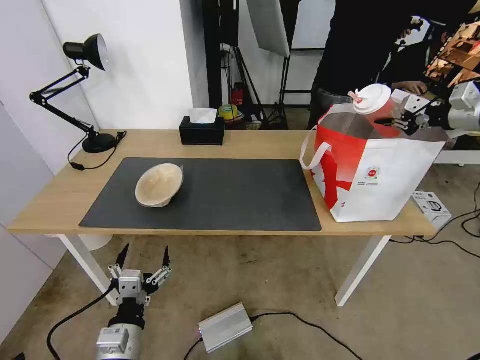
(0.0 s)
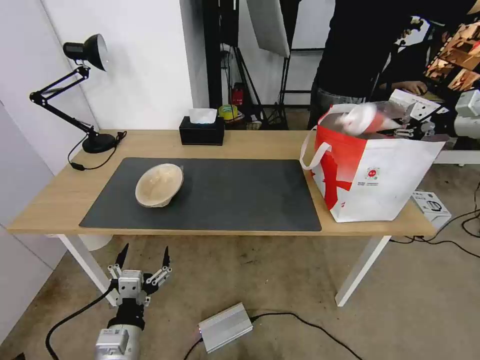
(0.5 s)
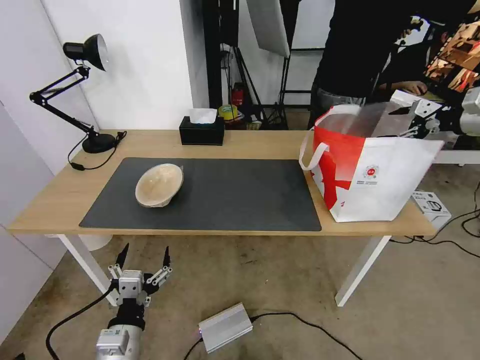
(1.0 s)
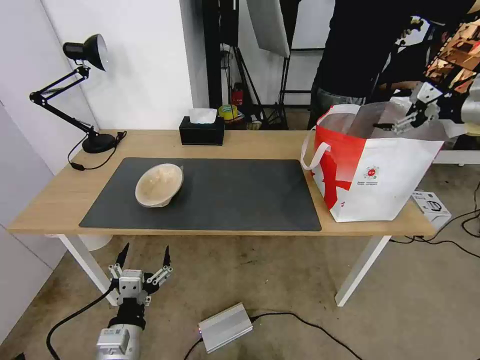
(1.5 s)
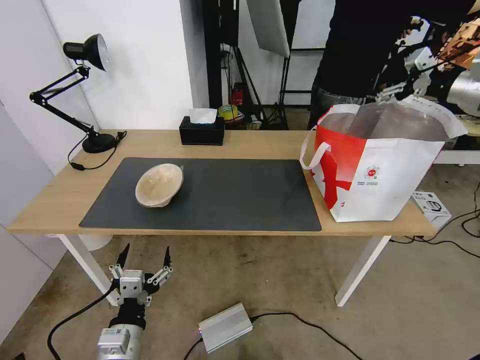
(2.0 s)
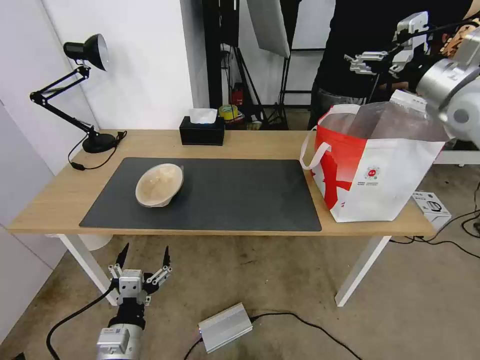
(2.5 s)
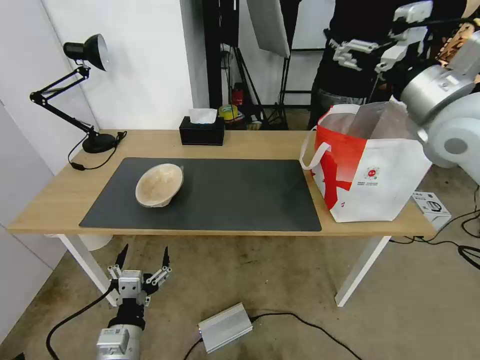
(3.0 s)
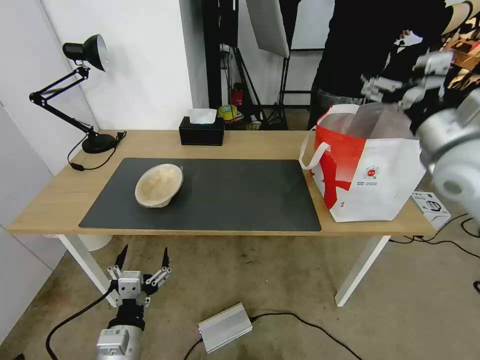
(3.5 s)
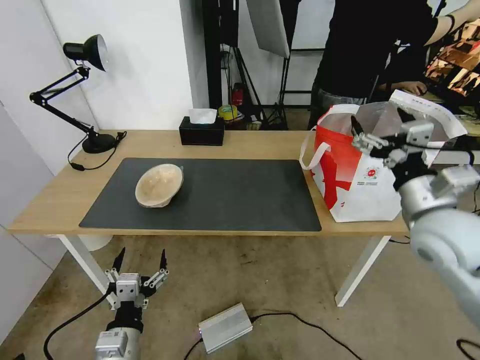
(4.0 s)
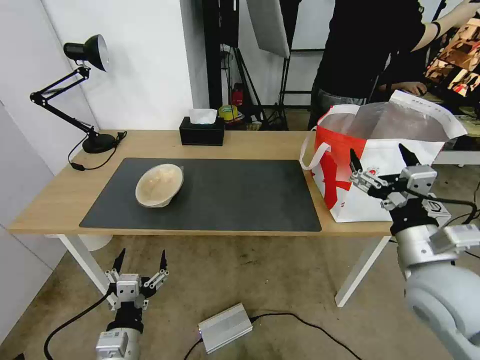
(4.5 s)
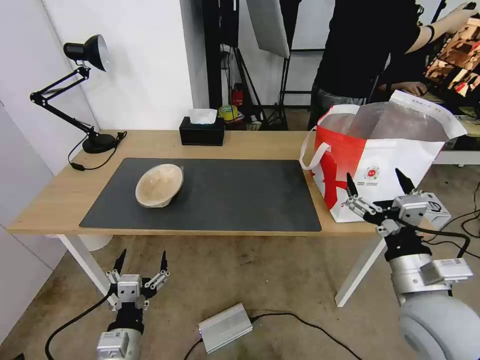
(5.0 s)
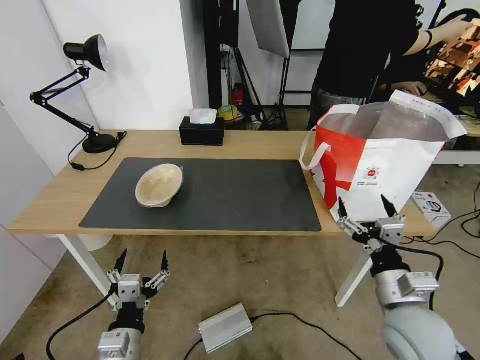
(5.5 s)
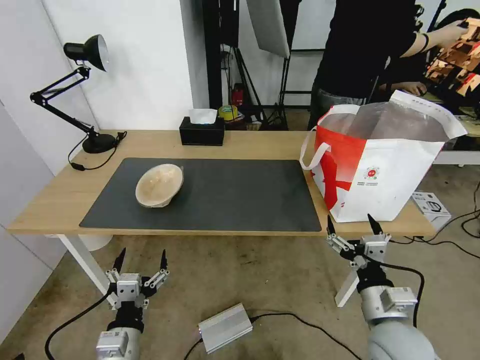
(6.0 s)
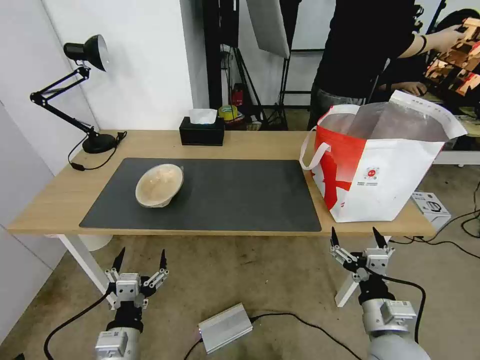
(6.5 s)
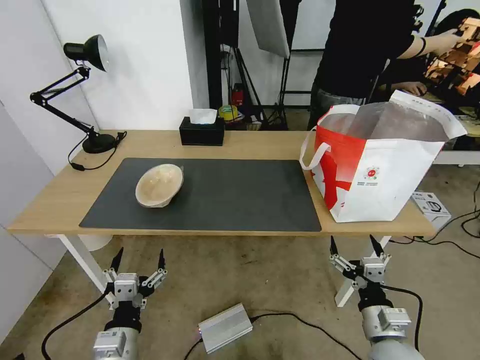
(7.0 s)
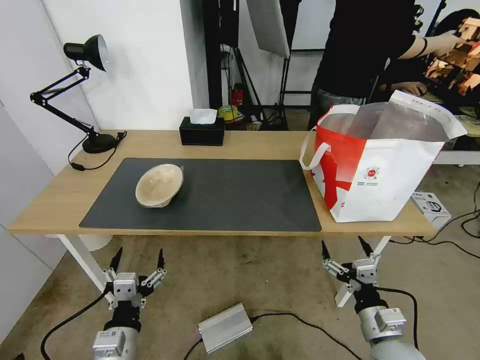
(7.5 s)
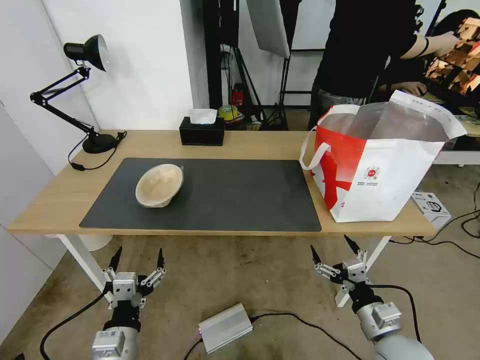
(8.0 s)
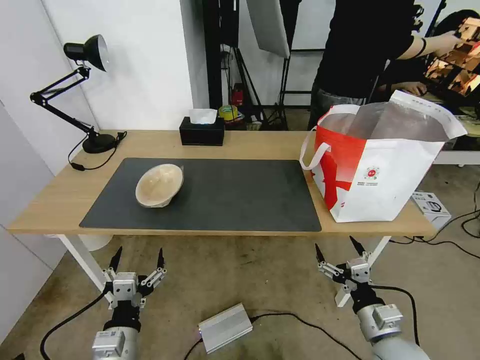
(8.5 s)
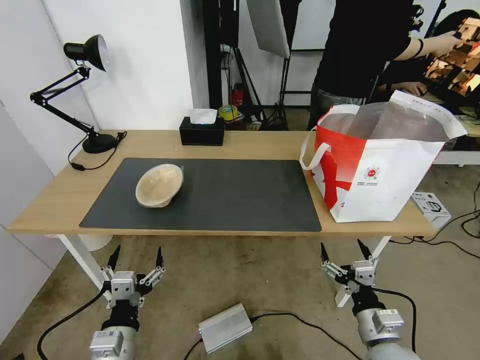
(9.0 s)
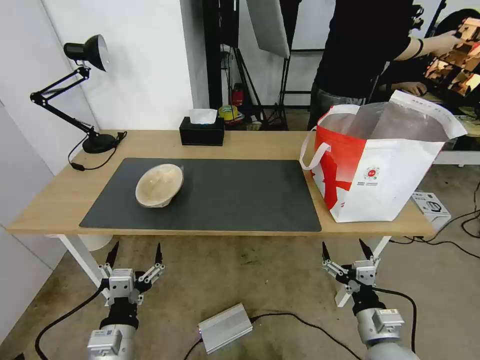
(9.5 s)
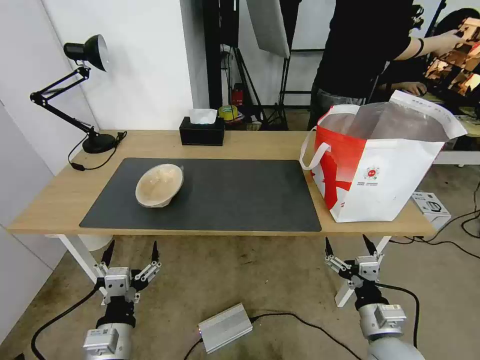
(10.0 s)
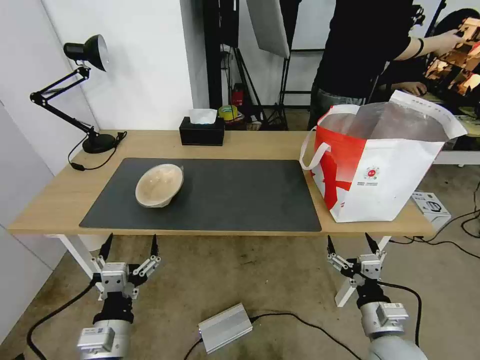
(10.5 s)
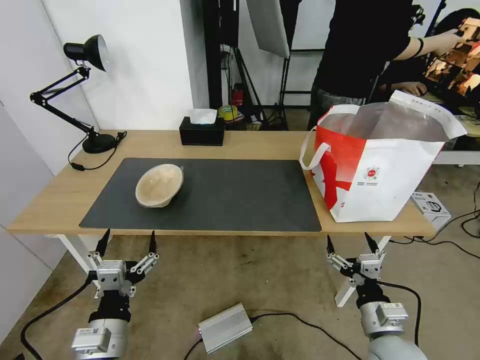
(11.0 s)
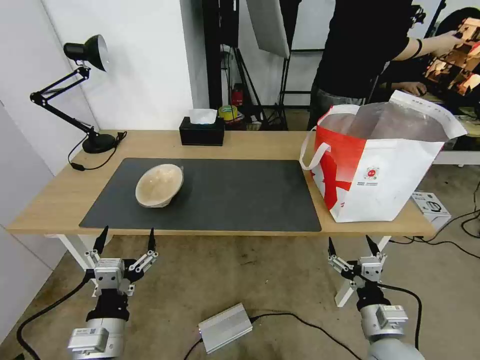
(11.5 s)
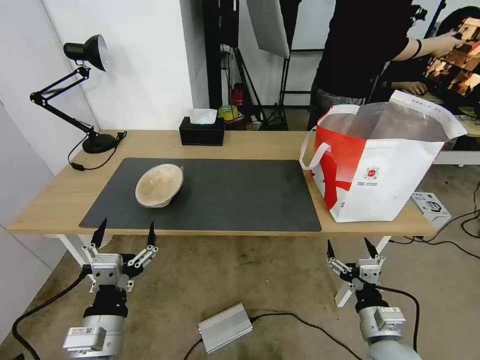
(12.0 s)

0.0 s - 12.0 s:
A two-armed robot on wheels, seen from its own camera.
Task of the whole recording: Pick up the trash from the table and place it into the takeout bag.
0.0 s - 2.0 s: The right gripper changes place by roughly 5 cm, and opens its fingers.
2.0 s - 4.0 s: The right gripper is displaced backward, to the left and downward by about 30 cm.
4.0 s - 6.0 s: The right gripper heads downward and backward, covering about 20 cm.
6.0 s - 8.0 s: The right gripper shifts some 5 cm downward.
8.0 s - 10.0 s: There are only small adjustments of the grippers.
10.0 s - 12.0 s: The grippers stay close to where they were, moving slightly.

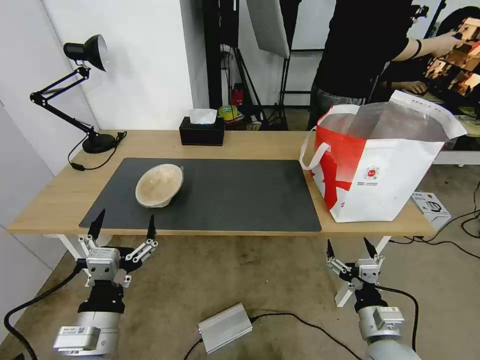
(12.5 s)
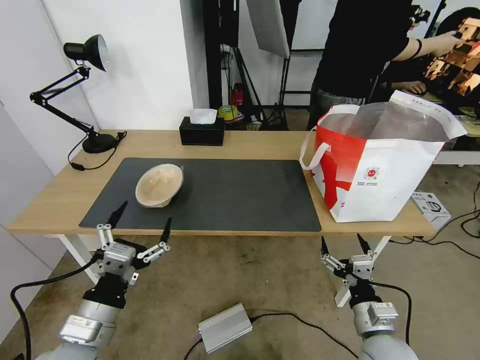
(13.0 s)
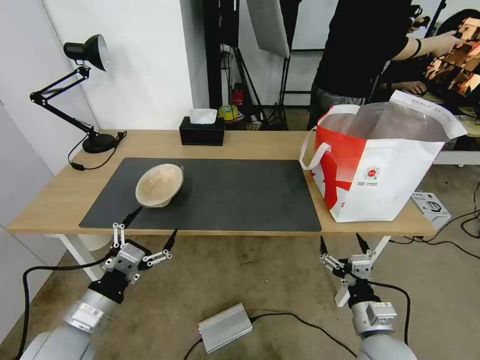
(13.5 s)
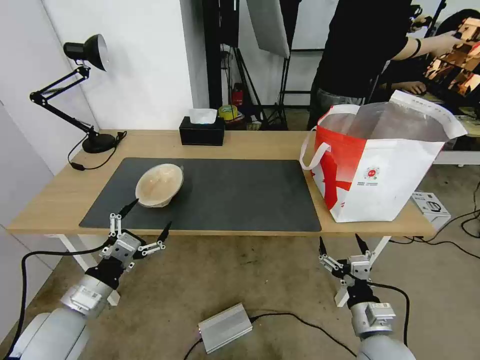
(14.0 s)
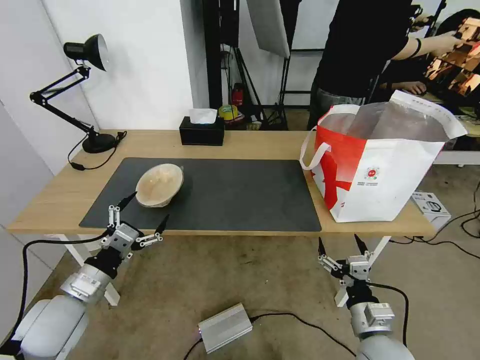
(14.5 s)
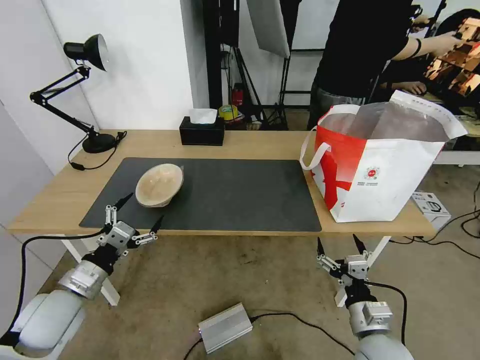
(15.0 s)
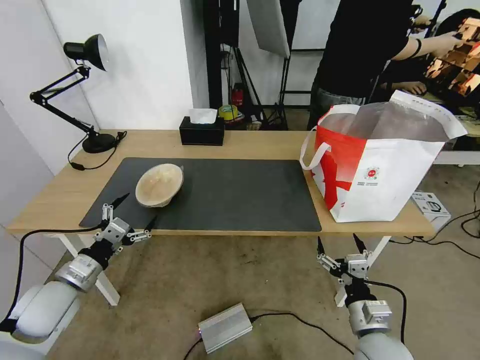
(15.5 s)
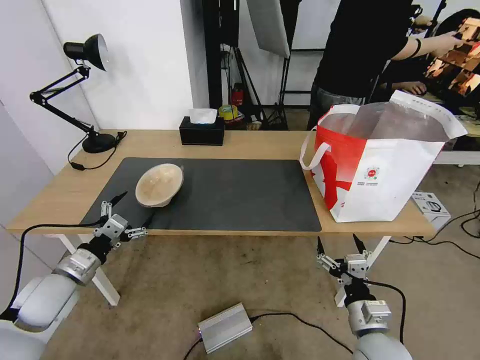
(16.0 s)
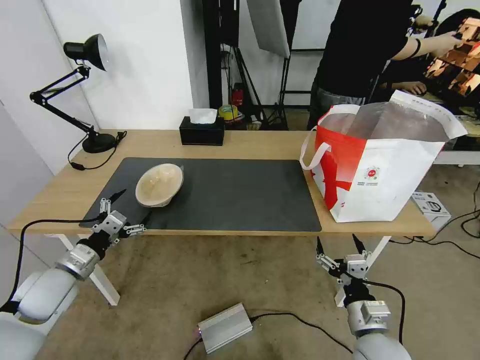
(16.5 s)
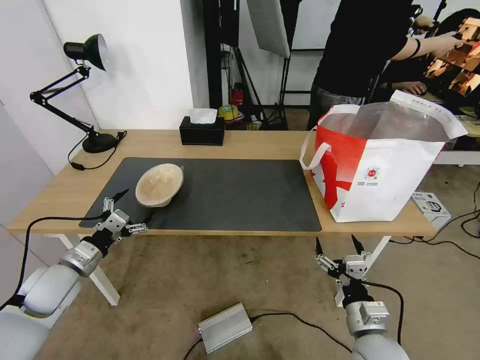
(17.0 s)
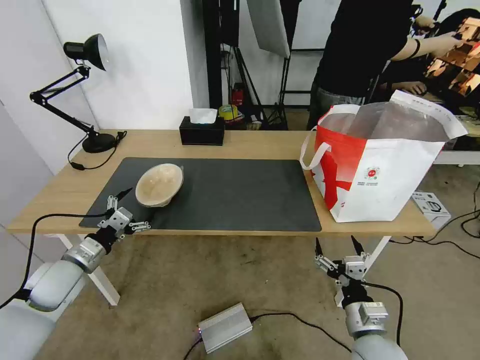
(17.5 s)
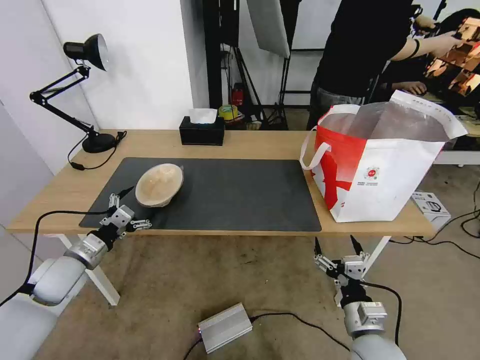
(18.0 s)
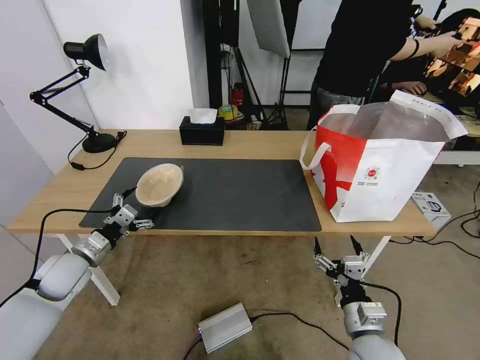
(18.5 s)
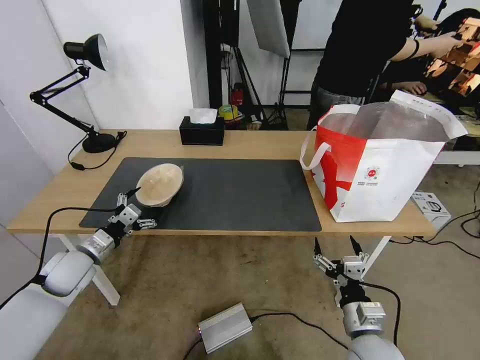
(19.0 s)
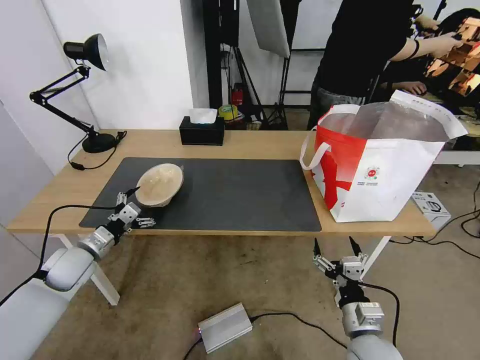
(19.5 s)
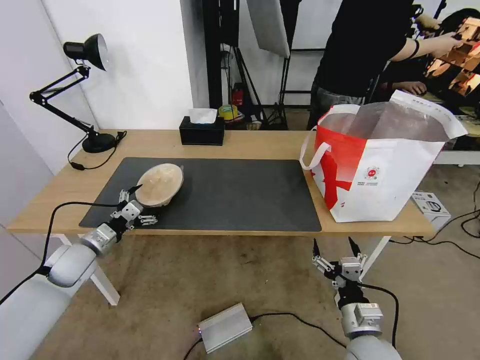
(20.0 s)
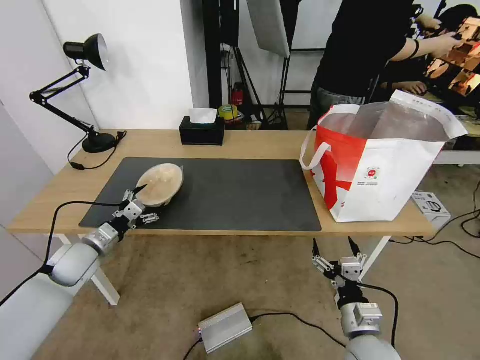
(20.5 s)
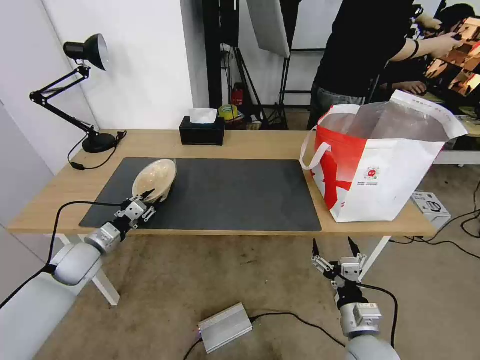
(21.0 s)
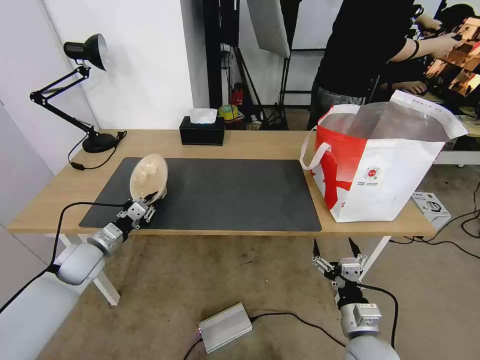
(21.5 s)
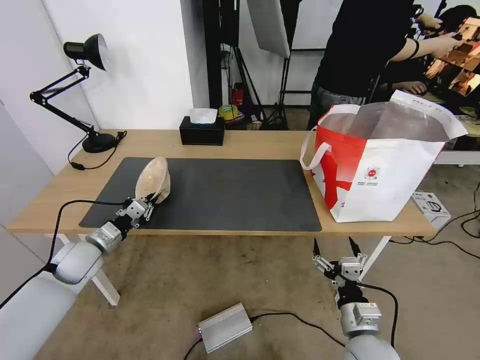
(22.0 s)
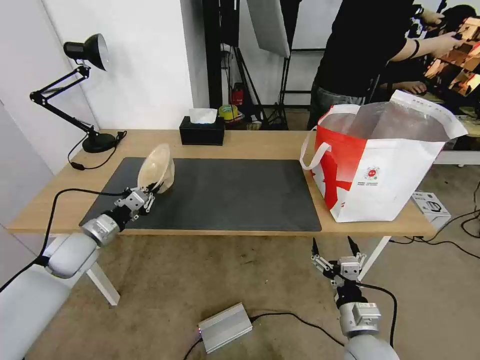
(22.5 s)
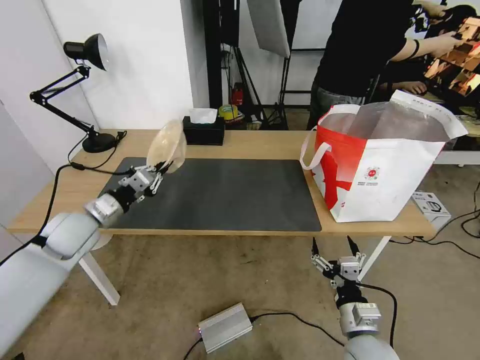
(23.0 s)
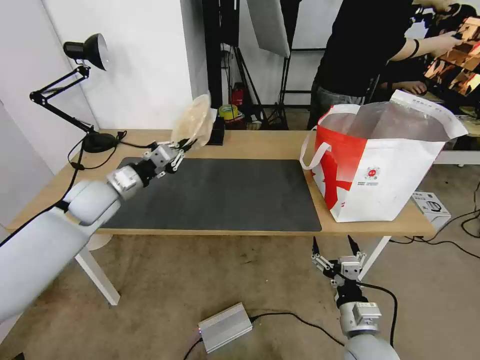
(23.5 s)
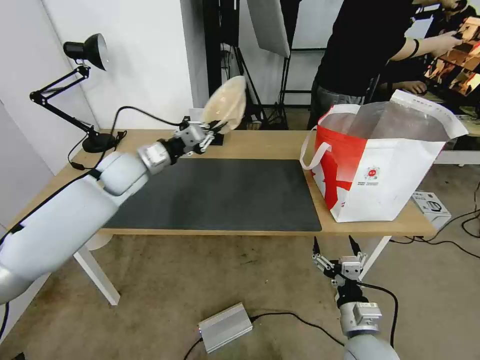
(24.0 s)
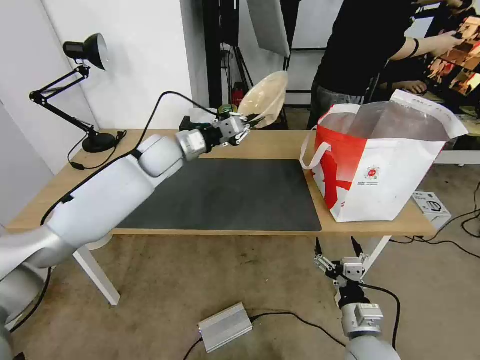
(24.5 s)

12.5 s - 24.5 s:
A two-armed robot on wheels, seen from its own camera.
Task of the whole recording: Pick up the trash from the table and place it into the takeout bag.
12.5 s - 14.5 s: The left gripper travels to the left and forward by about 15 cm.
14.5 s - 16.5 s: The left gripper travels forward and to the left by about 10 cm.
16.5 s - 18.5 s: The grippers move only a little.
18.5 s - 20.5 s: The grippers make only small movements.
20.5 s - 22.5 s: The left gripper closes its fingers.
22.5 s - 24.5 s: The left gripper heads to the right, forward and upward, covering about 30 cm.

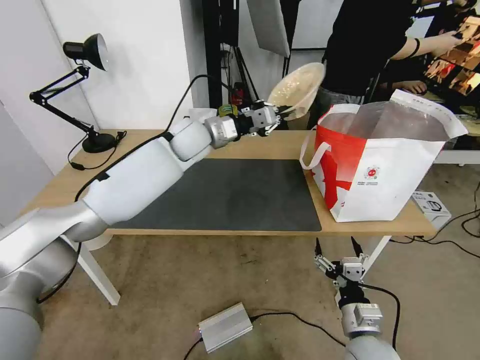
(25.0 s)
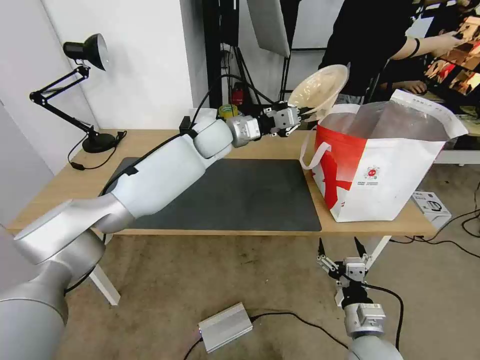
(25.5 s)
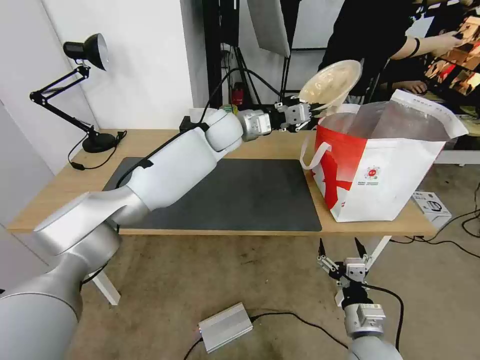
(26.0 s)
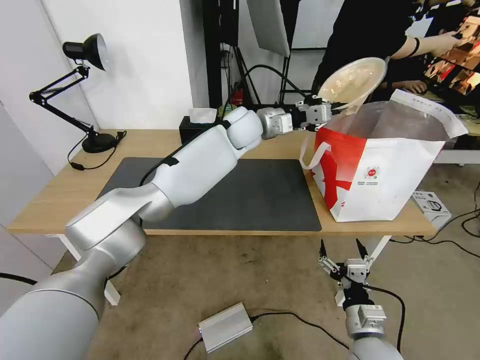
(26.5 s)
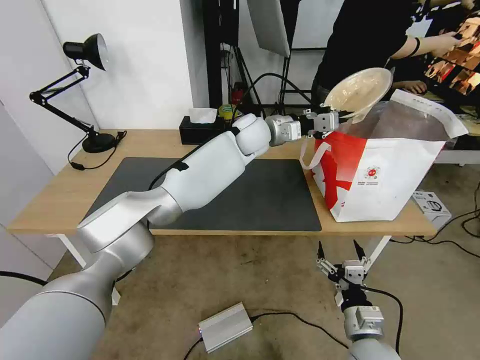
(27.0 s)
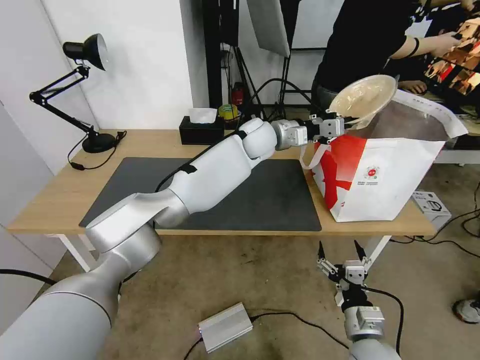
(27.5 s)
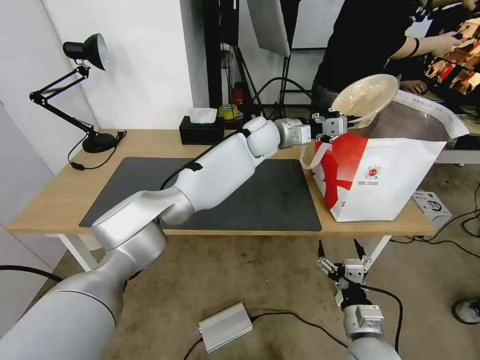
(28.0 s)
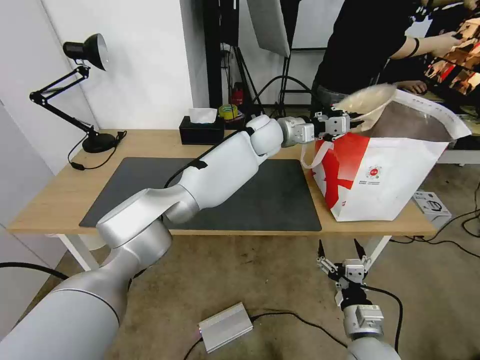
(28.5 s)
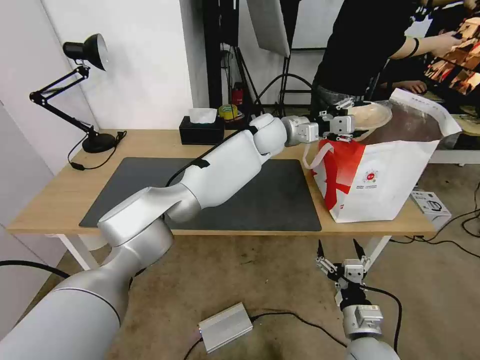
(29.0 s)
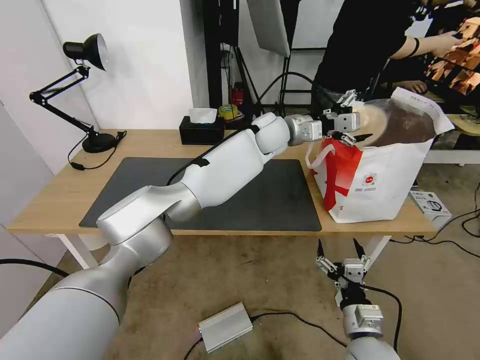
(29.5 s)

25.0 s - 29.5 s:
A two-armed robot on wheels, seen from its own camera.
Task of the whole recording: Pick up the trash from the table and place it into the takeout bag.
25.0 s - 27.0 s: The left gripper is displaced to the right by some 15 cm.
27.0 s - 29.5 s: The left gripper opens.
